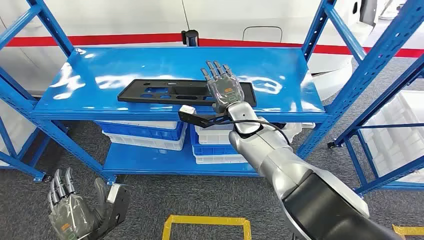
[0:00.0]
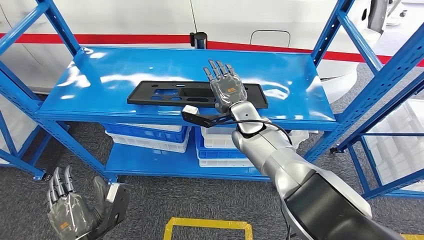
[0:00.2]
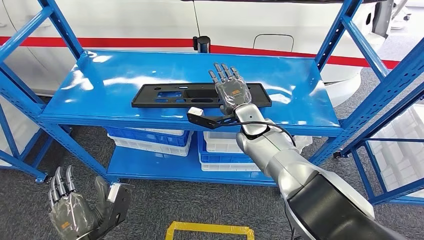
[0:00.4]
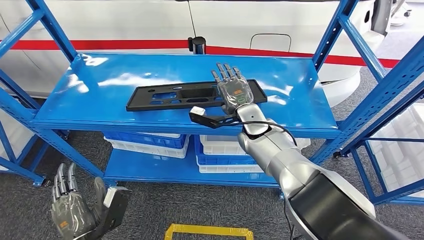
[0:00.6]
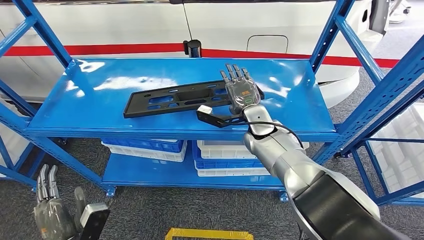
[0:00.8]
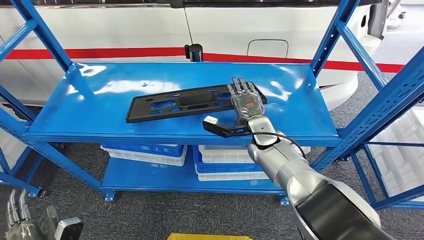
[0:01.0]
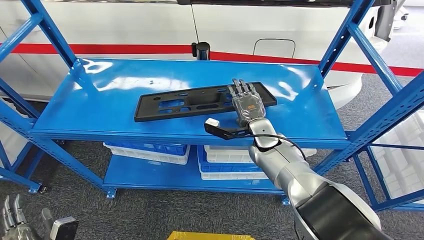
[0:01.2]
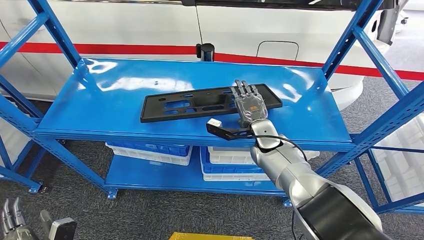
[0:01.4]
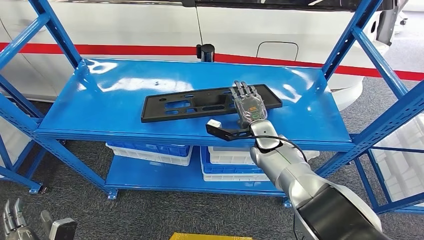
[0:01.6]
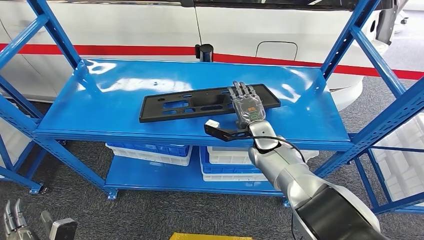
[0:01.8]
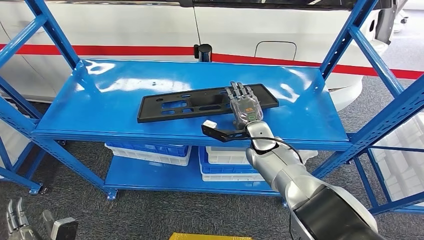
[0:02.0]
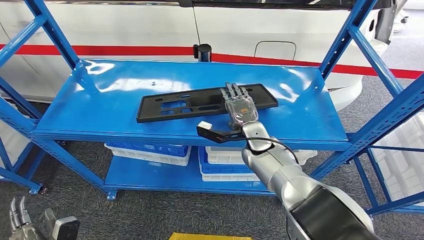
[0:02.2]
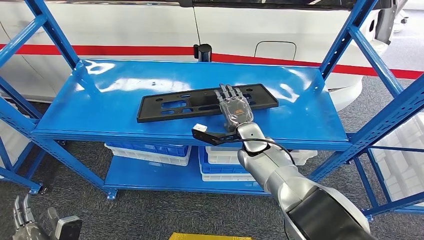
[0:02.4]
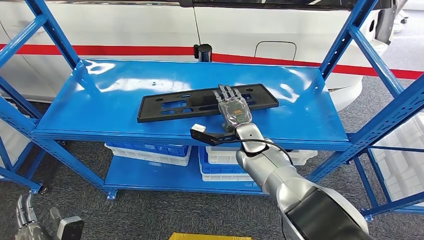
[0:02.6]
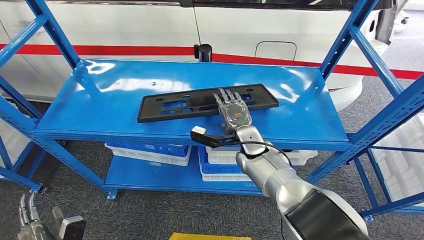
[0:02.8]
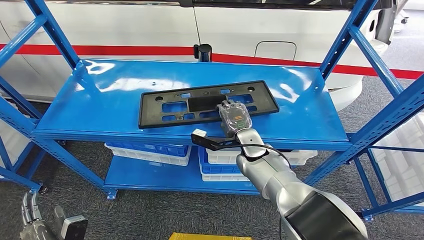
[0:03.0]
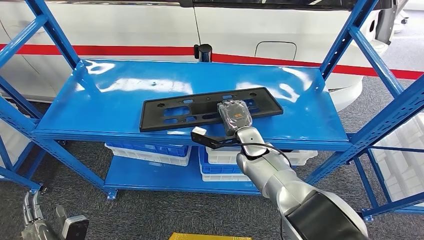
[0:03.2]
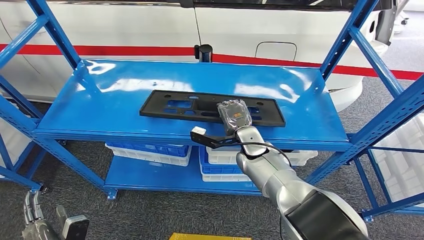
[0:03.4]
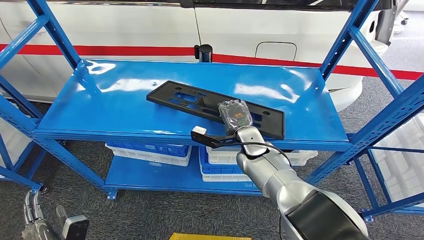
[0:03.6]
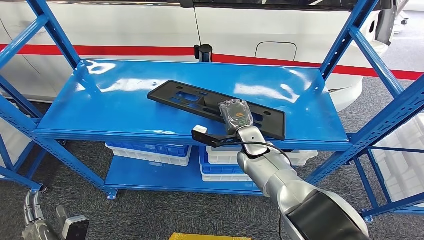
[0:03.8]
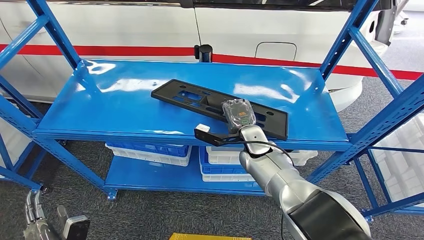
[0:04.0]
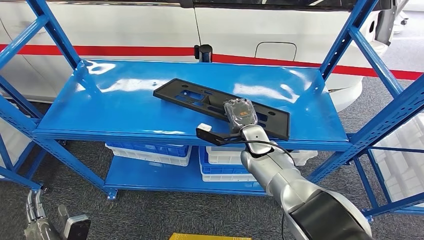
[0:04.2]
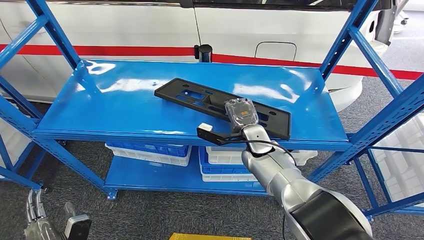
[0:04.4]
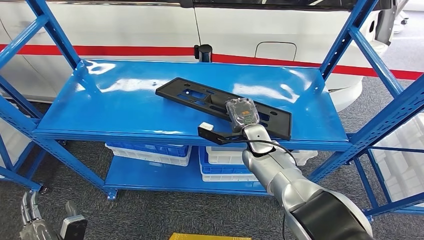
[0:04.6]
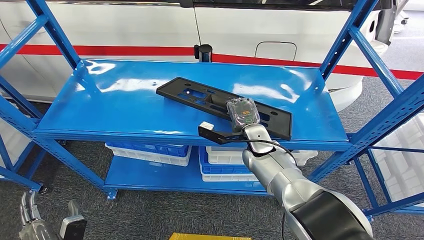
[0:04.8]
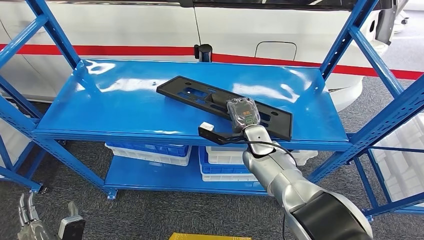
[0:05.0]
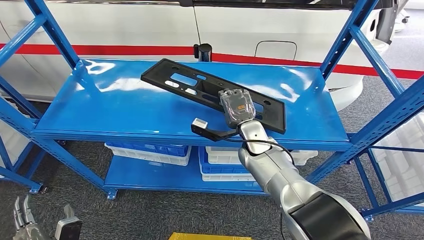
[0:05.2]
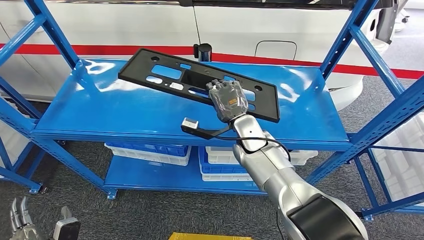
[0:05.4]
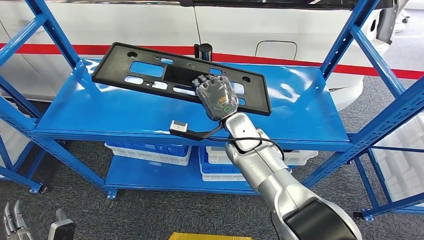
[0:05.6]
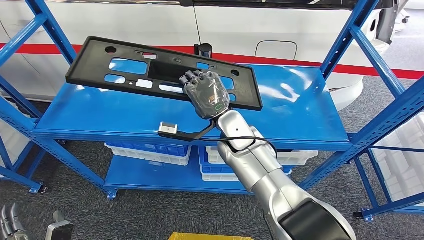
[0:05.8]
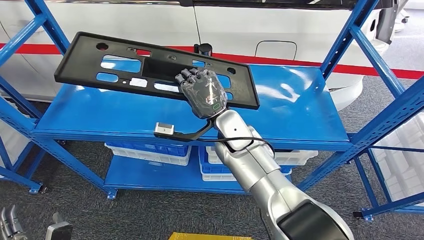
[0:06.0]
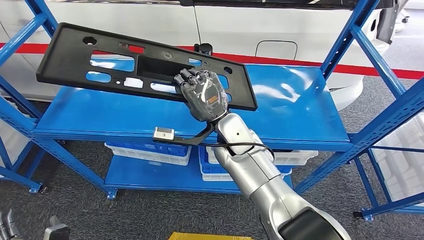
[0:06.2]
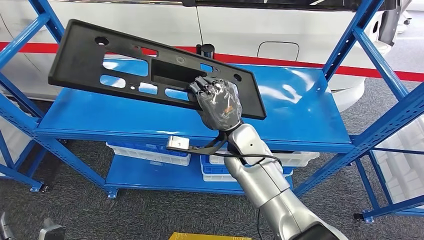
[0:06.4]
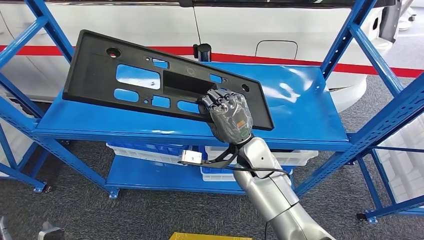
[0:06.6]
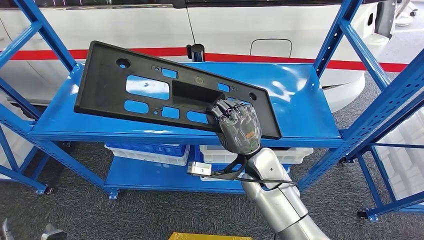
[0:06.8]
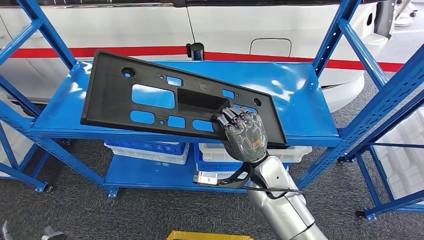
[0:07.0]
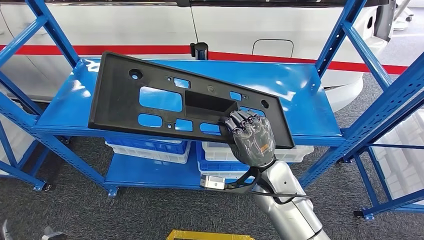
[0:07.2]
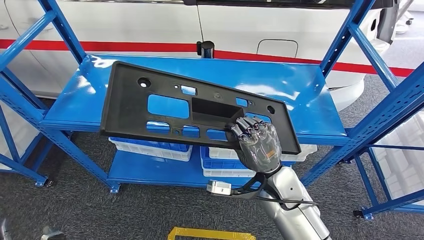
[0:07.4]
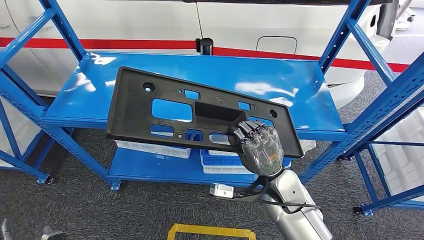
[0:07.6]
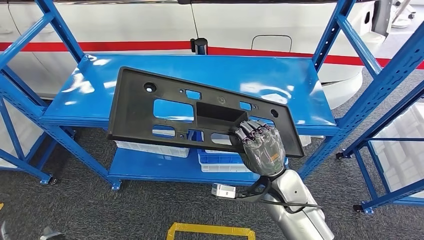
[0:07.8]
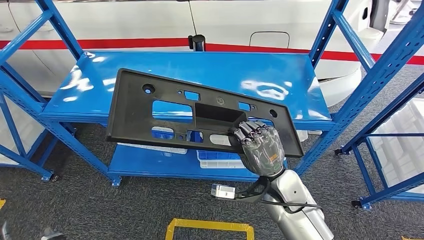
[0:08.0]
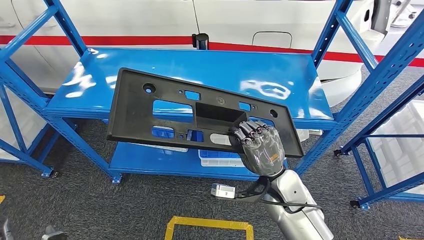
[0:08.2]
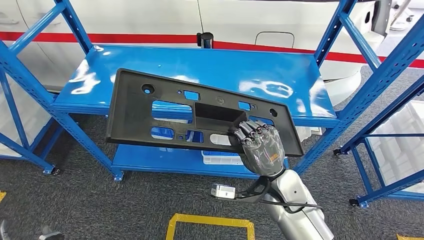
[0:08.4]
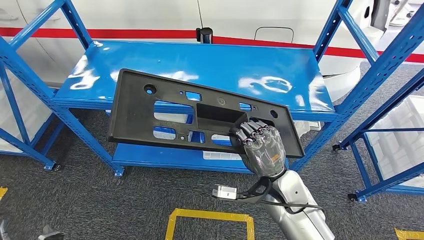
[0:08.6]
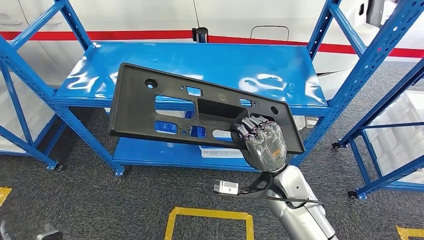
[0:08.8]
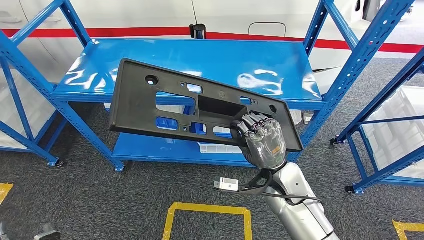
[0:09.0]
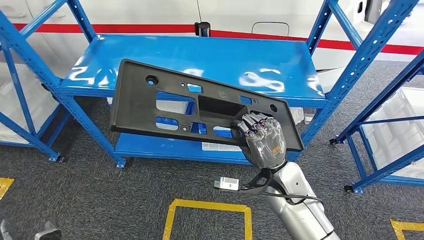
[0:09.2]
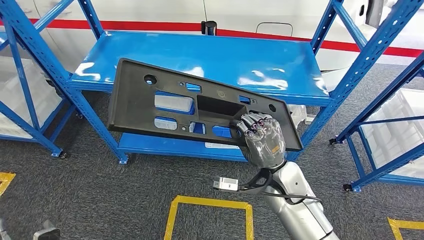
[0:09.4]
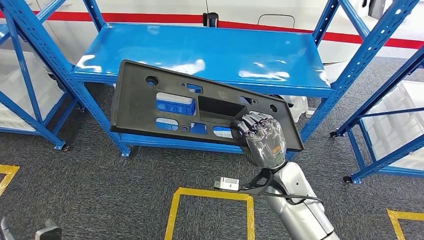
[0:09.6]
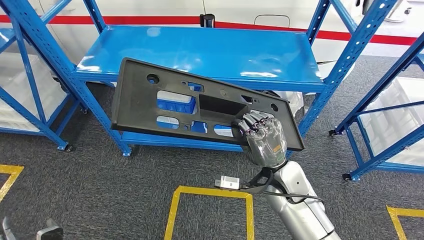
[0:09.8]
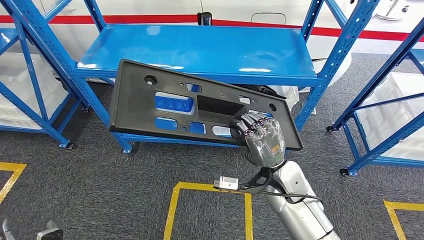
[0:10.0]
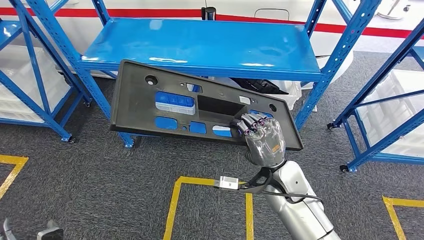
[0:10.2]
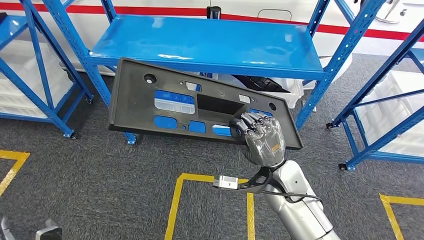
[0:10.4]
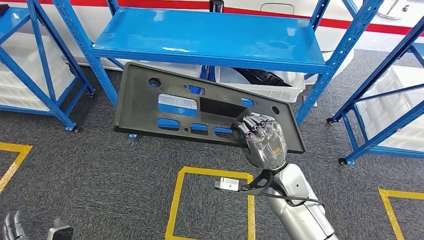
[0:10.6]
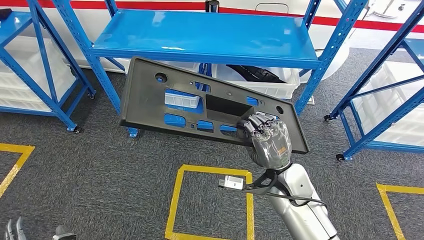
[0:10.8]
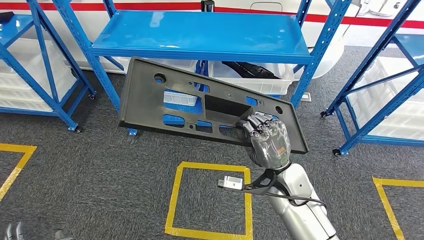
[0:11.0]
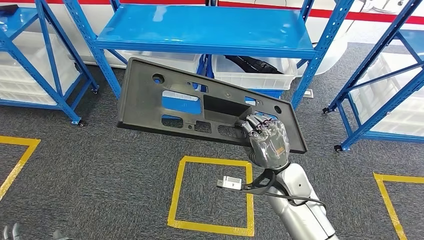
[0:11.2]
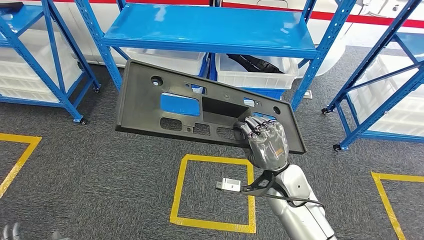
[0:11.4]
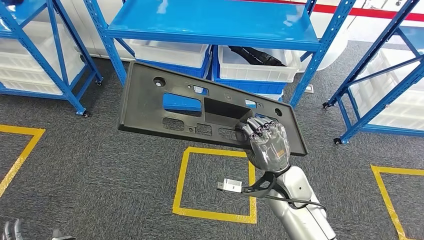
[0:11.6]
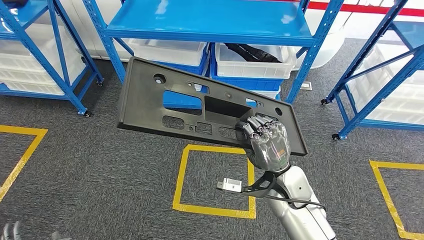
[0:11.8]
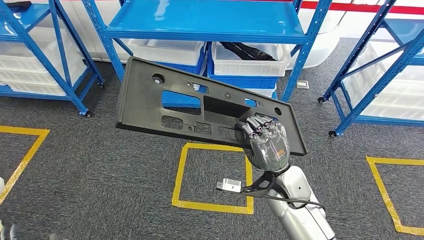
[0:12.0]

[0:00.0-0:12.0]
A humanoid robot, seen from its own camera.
Step, 0:00.0 to 0:06.6: Pick up the large material from the shelf.
0:03.0 to 0:04.4: There are only small adjustments of the hands.

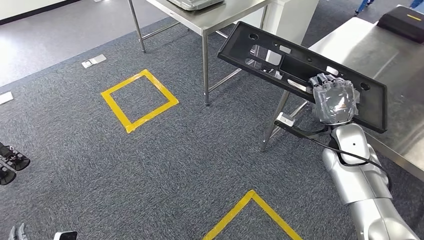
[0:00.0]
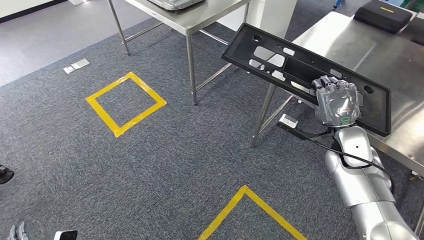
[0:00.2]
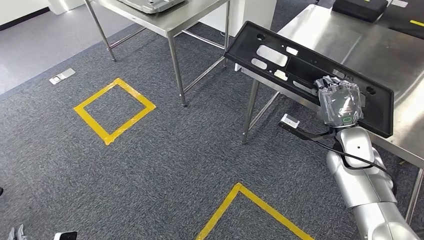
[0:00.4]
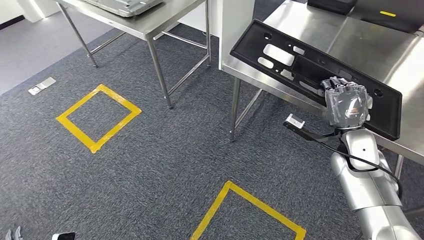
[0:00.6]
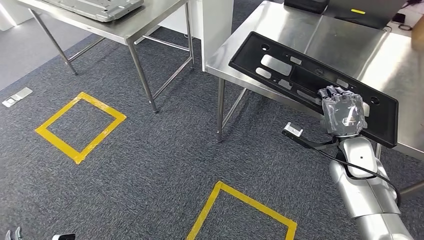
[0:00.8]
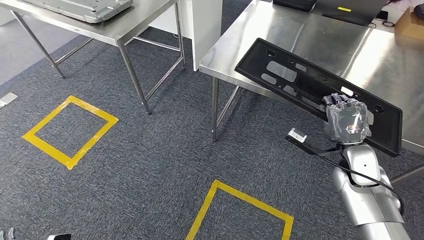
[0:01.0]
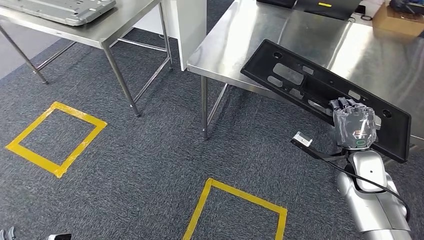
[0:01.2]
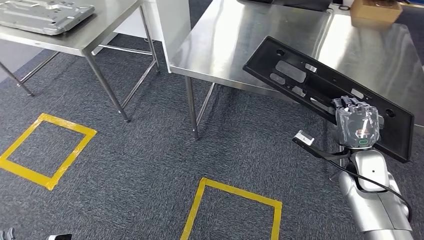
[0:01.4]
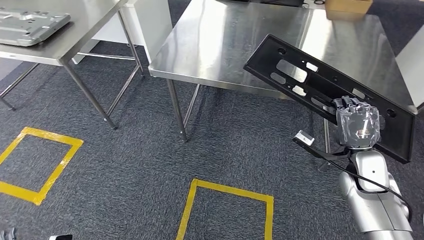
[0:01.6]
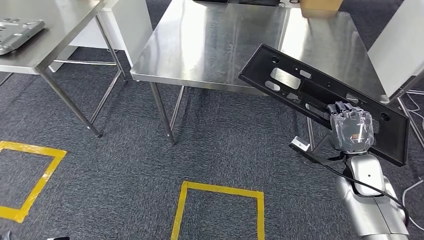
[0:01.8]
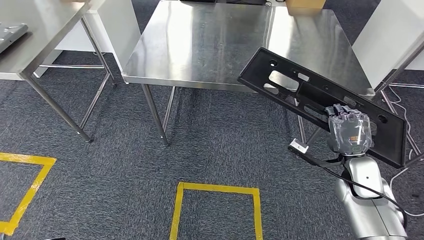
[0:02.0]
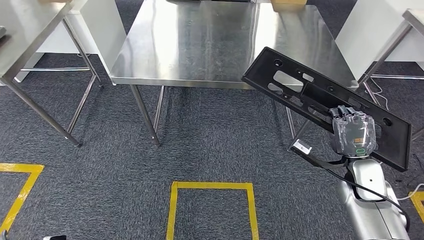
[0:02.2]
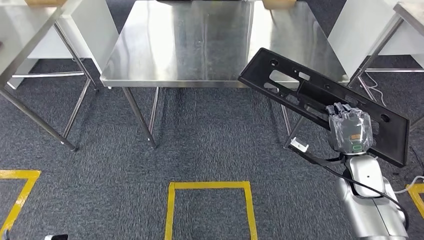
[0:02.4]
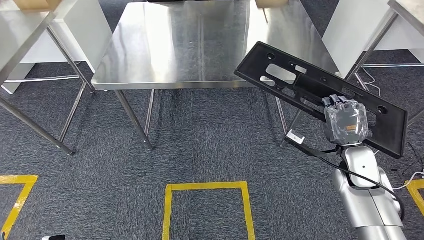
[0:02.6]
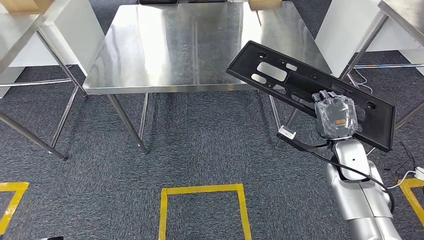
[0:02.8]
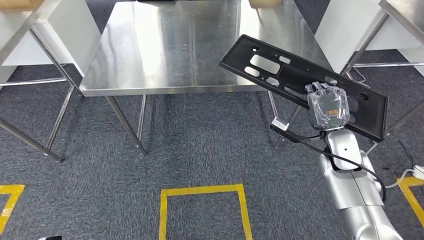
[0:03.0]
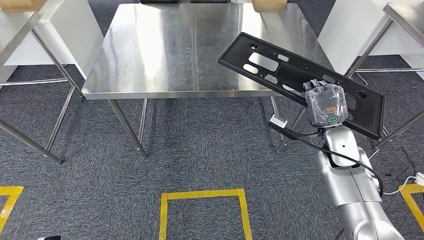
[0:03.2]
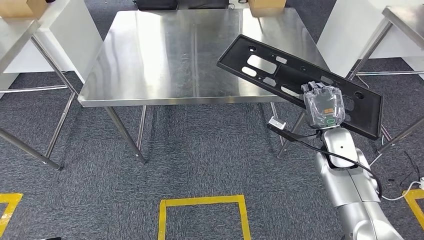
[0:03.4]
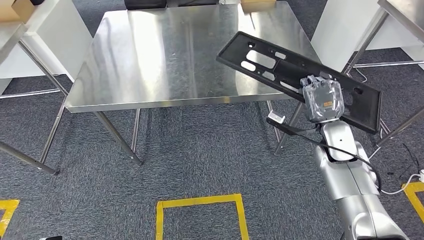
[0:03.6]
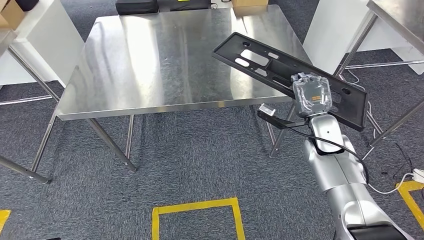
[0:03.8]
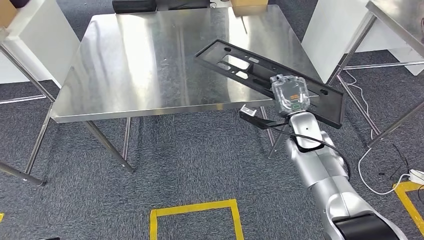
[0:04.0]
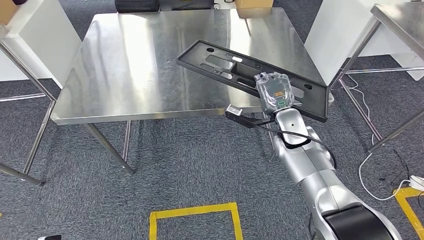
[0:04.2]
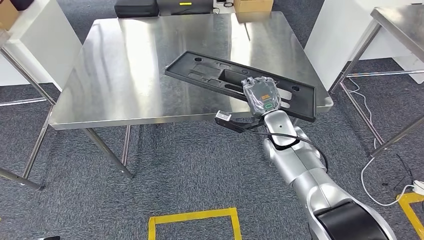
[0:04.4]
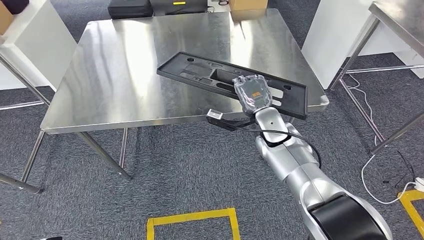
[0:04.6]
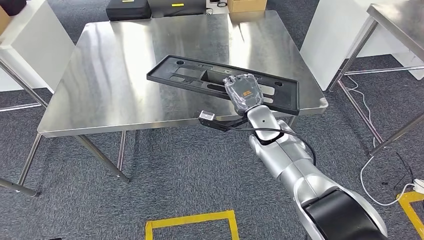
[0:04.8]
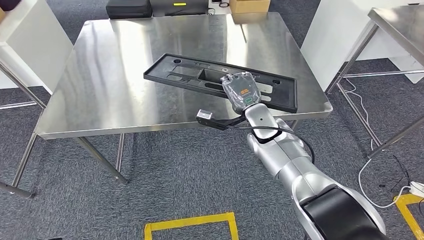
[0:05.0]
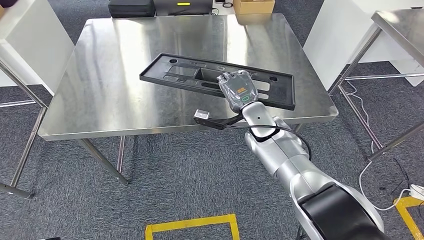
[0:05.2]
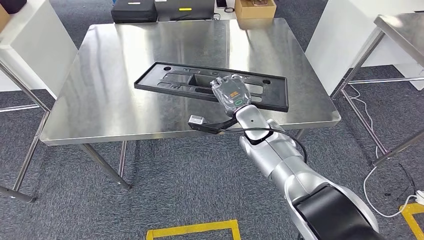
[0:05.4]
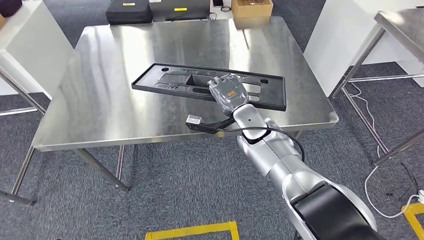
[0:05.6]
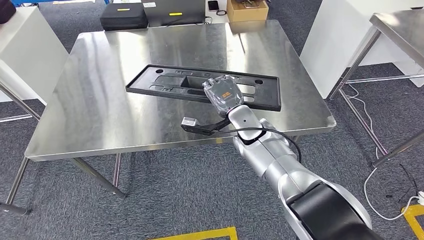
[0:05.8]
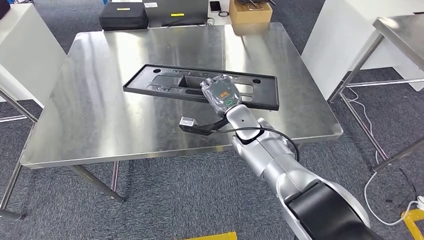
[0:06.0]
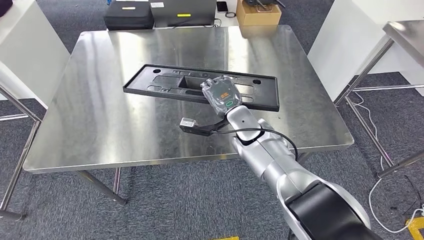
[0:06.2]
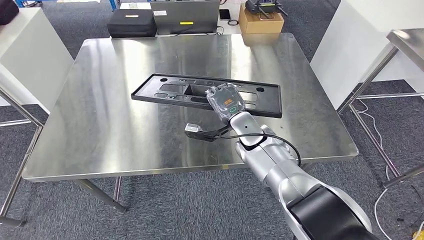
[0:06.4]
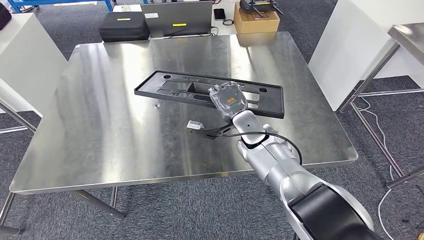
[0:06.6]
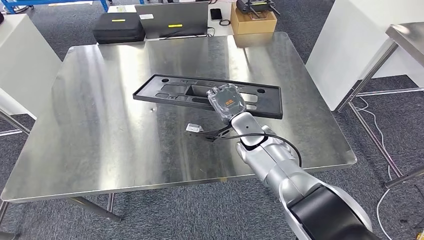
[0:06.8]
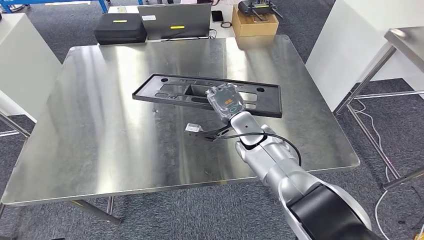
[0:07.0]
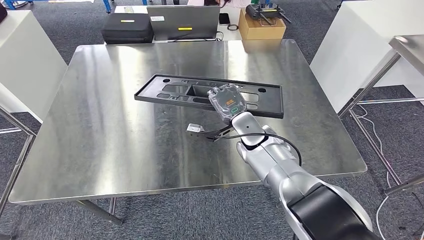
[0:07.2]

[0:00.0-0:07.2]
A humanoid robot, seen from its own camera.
Step, 0:00.0 to 0:04.0: Move the large material to the workbench.
